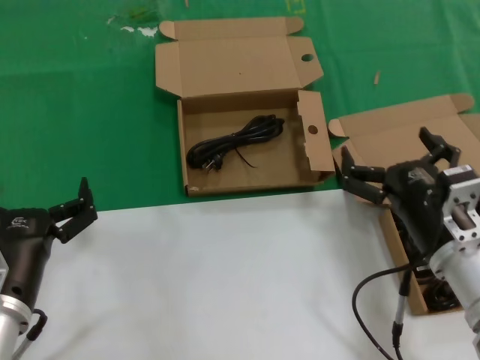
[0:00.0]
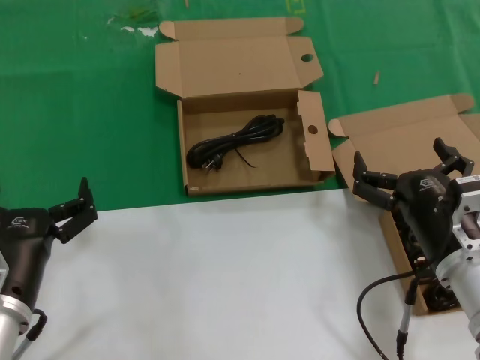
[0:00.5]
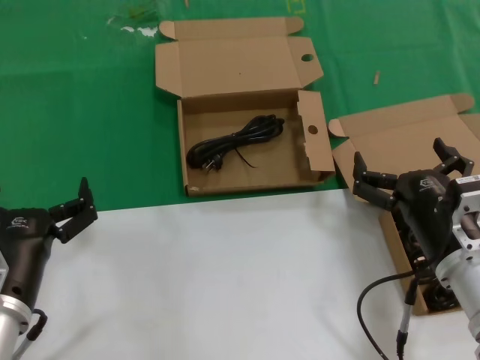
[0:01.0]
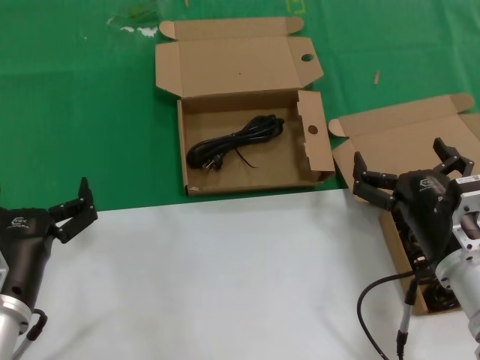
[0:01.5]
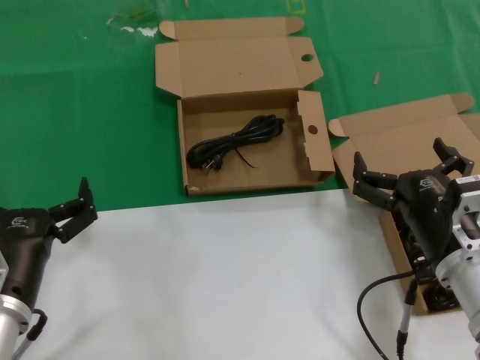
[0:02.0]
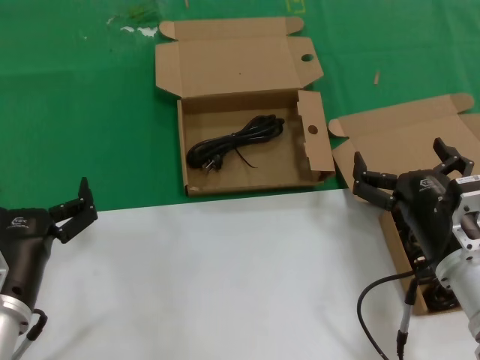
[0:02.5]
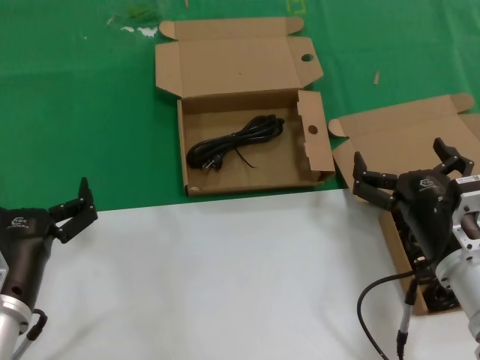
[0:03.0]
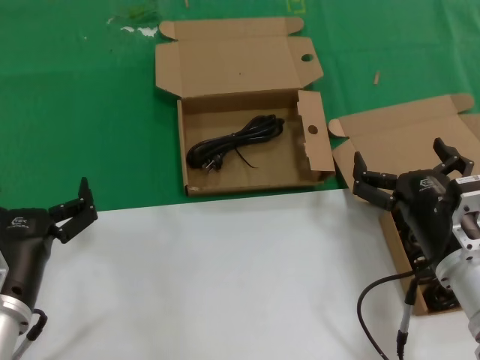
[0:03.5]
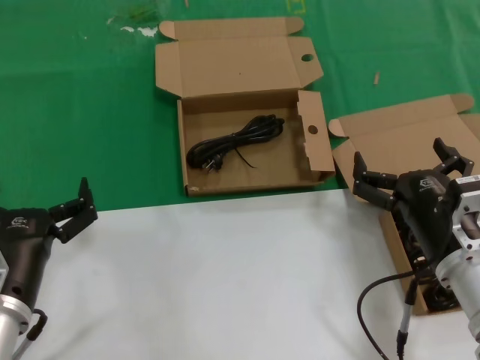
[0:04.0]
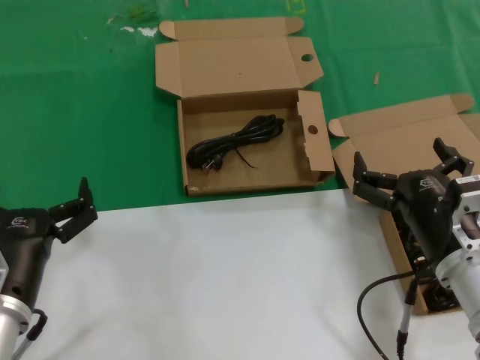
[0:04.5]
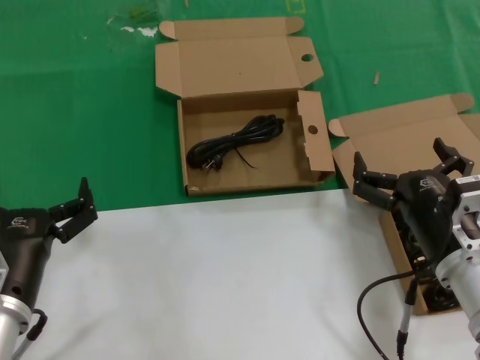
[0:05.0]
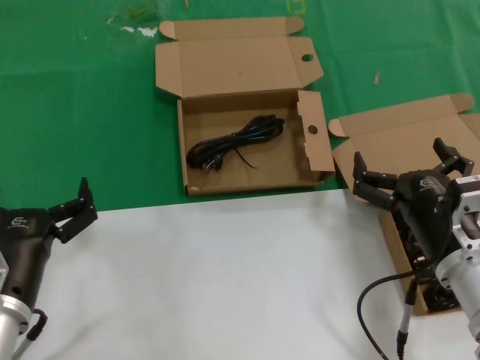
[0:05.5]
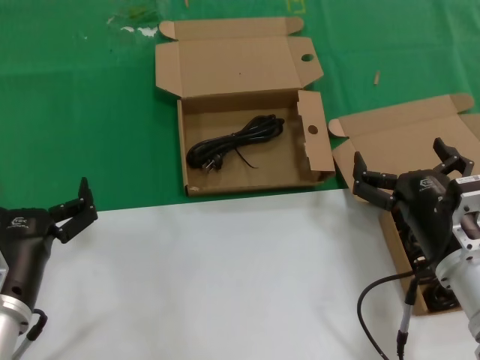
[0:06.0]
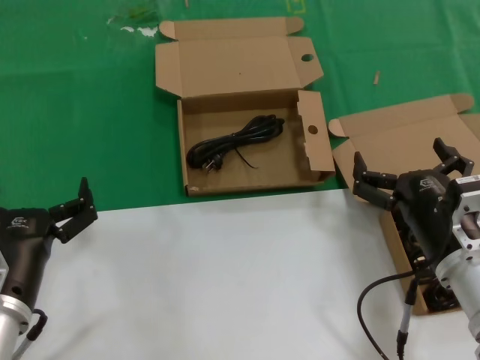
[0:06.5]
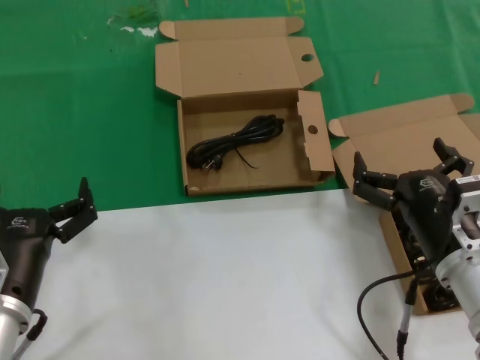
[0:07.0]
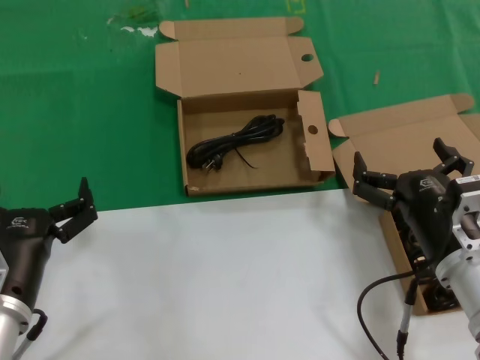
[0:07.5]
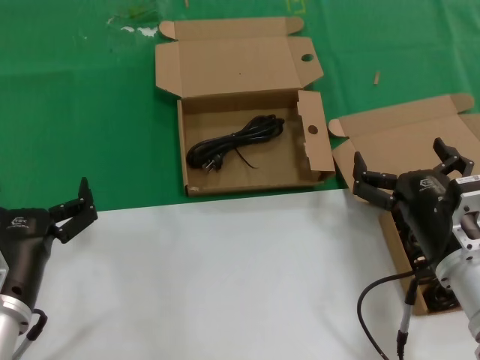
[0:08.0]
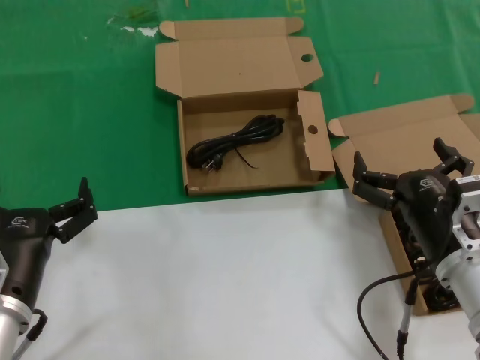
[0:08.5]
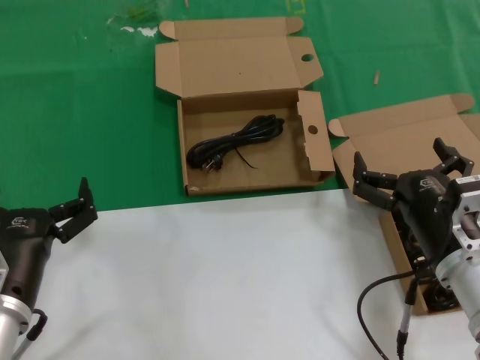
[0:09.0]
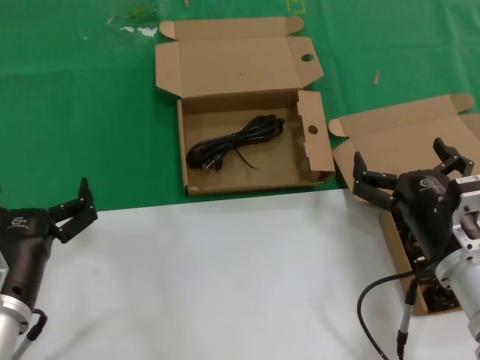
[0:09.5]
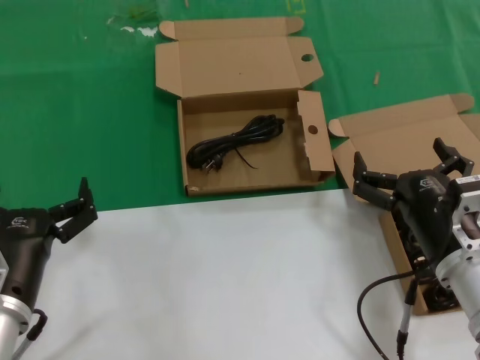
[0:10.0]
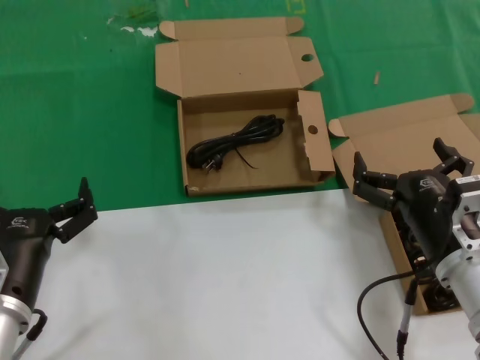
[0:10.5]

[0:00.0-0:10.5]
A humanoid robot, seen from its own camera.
Task of the whole recording: take the parts from the box containing them and put them into an empty box.
0:00.0 to 0:10.5: Neither hand changes place.
